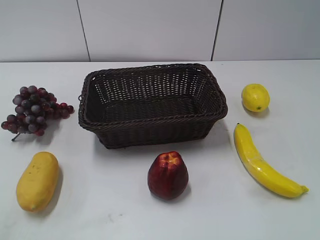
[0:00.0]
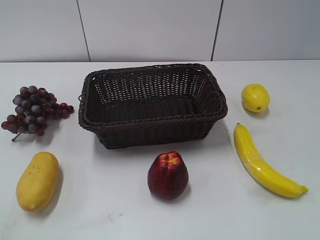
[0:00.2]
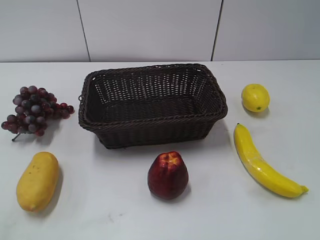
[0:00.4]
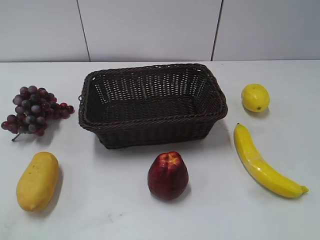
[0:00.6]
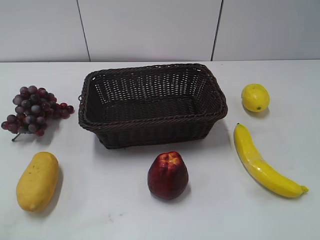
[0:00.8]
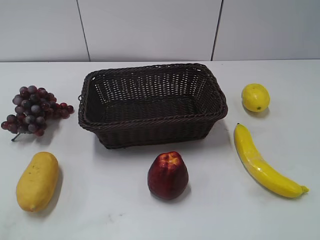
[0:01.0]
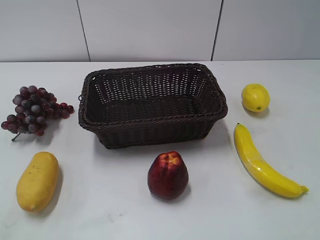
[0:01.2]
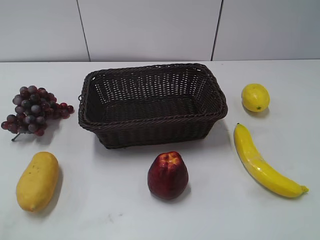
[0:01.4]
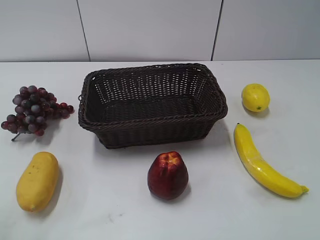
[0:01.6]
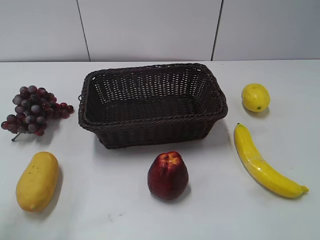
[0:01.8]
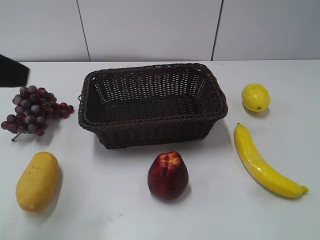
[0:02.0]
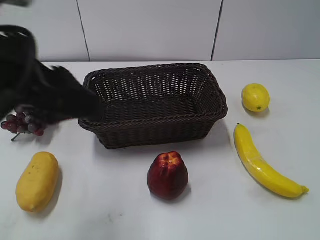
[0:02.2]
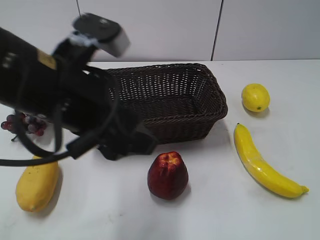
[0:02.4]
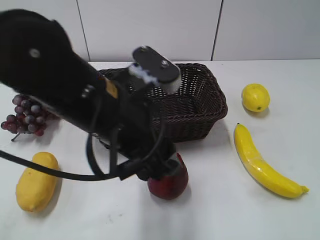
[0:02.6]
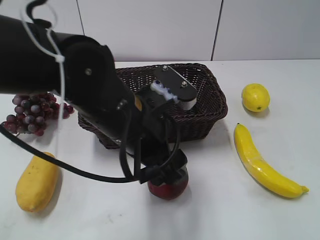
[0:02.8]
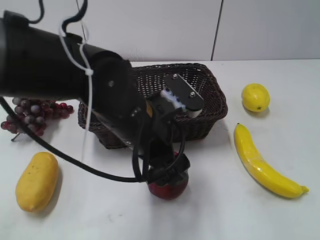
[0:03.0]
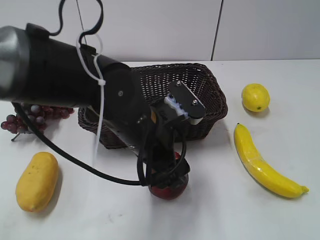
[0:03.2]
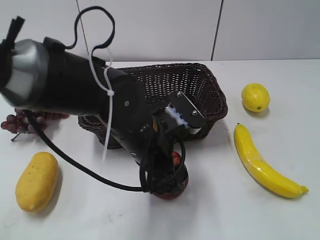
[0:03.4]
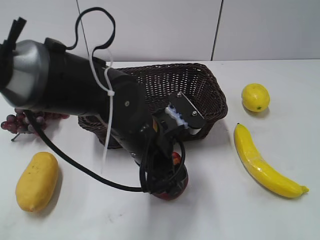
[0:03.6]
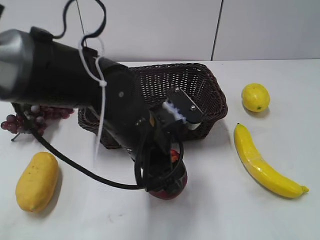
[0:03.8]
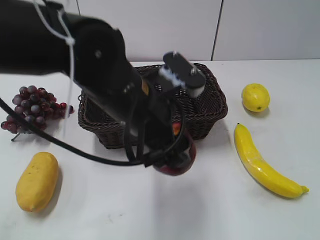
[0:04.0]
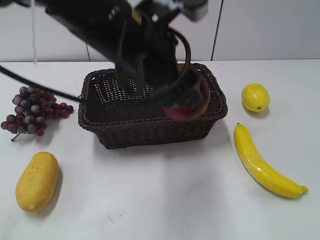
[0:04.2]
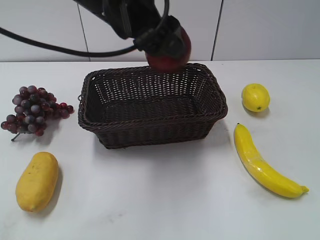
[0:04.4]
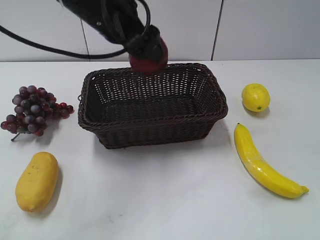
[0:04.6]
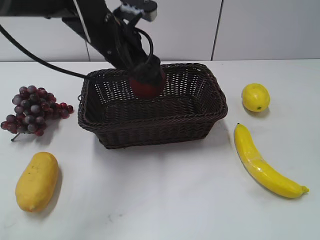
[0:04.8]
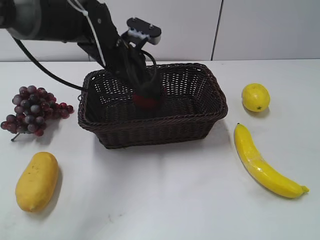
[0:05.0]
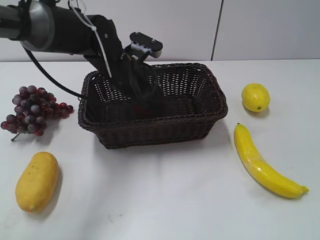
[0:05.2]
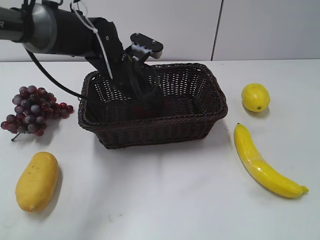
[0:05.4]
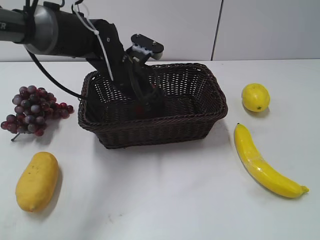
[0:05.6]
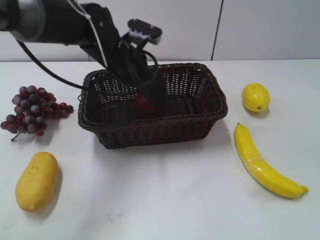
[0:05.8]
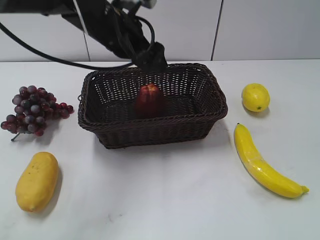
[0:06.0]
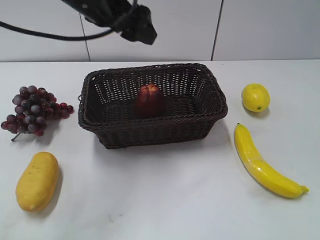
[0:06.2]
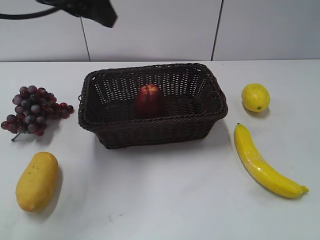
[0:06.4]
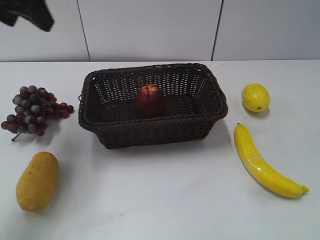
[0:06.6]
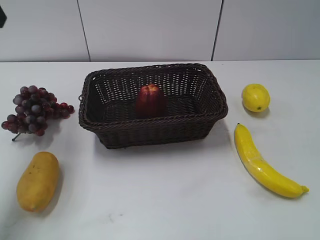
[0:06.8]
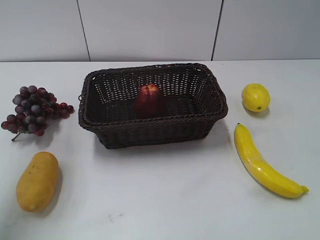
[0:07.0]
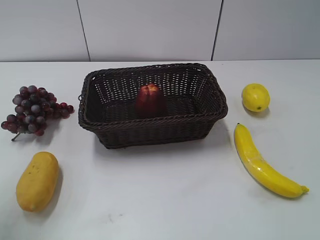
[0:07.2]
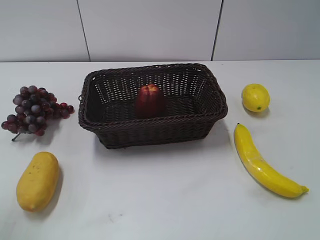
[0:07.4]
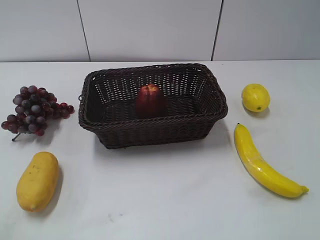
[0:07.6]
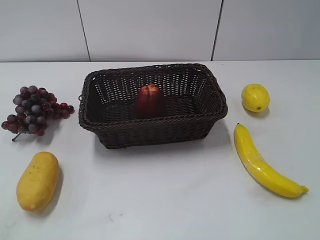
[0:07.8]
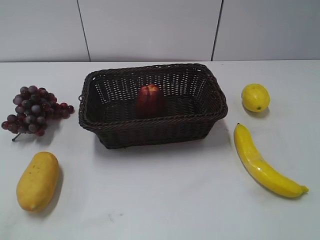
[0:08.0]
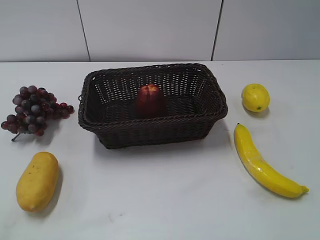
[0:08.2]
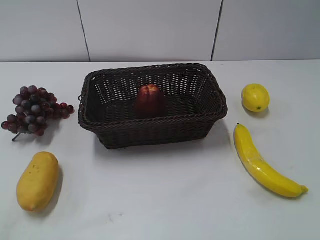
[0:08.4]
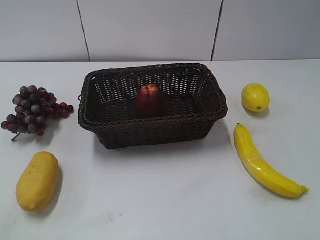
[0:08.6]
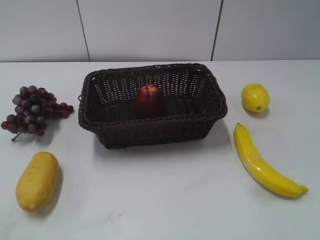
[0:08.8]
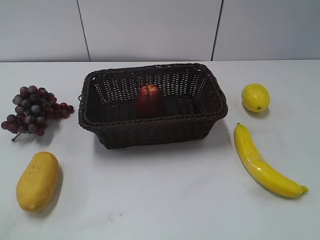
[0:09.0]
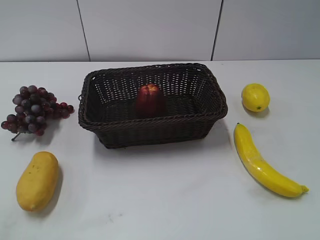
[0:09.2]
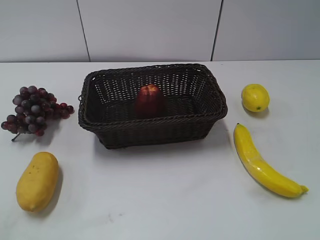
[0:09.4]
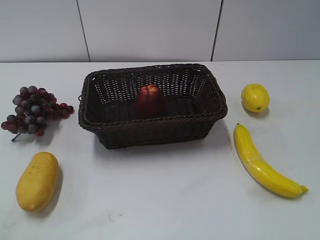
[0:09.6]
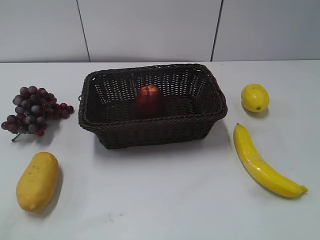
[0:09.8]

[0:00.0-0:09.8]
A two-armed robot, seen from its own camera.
Step, 0:02.0 to 0:03.4: Grasp the apple with left gripper.
Step, 0:03.8 to 0:05.6: Place the apple in the basket with left gripper.
0:01.4 to 0:02.8: The left gripper travels to the right, forward and downward by about 35 cm.
0:02.8 to 0:04.2: The left gripper shifts about 10 cm upward, and opens, then closes once more.
0:04.2 to 0:05.6: The left gripper travels forward and downward by about 20 cm, and opens.
0:05.6 to 0:07.0: The left gripper is displaced upward, to the left and backward by about 35 cm, and closes up.
0:07.0 to 0:08.4: The left gripper is displaced backward and downward by approximately 30 cm.

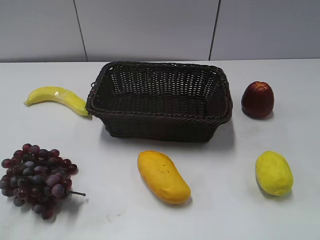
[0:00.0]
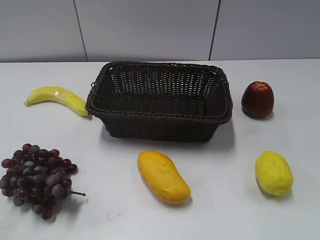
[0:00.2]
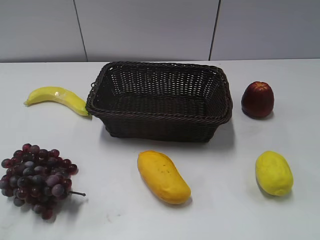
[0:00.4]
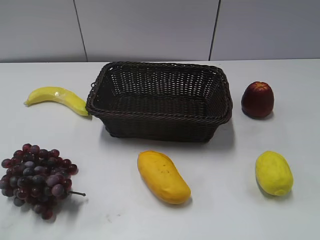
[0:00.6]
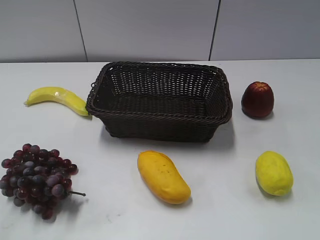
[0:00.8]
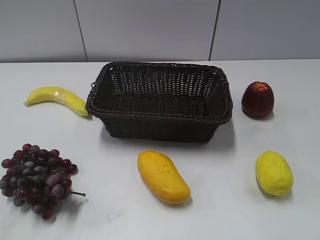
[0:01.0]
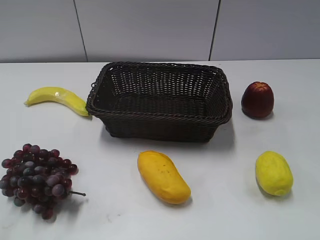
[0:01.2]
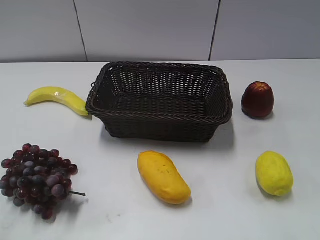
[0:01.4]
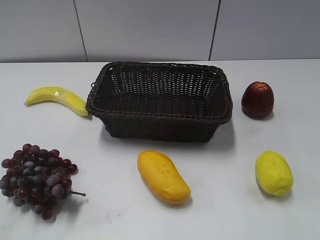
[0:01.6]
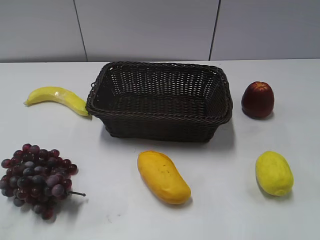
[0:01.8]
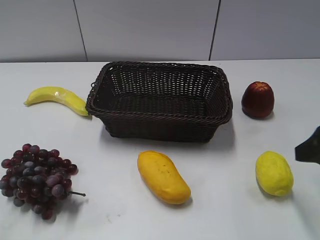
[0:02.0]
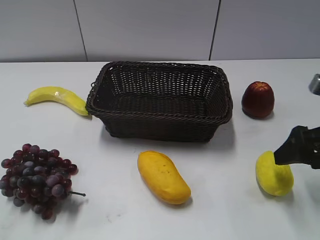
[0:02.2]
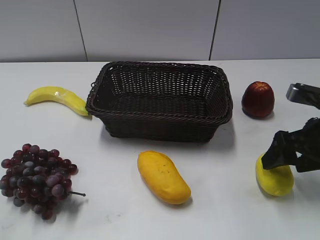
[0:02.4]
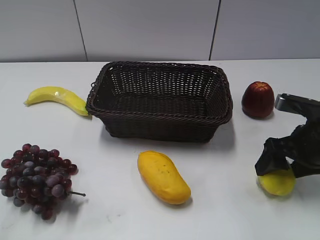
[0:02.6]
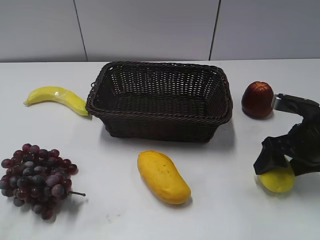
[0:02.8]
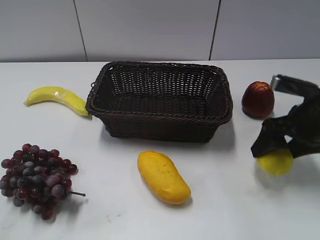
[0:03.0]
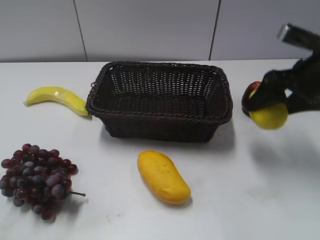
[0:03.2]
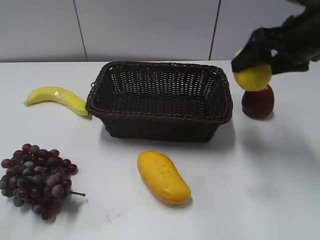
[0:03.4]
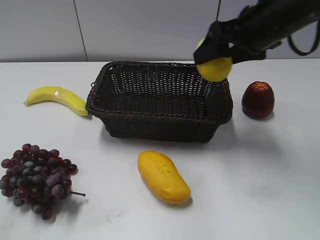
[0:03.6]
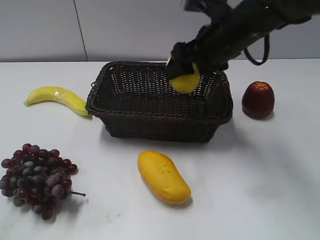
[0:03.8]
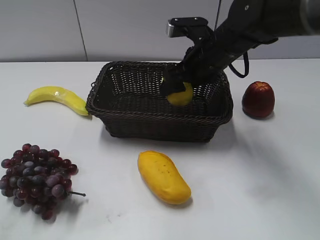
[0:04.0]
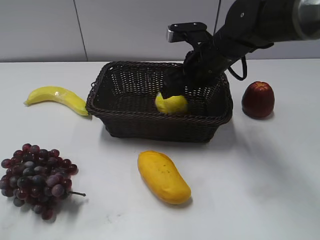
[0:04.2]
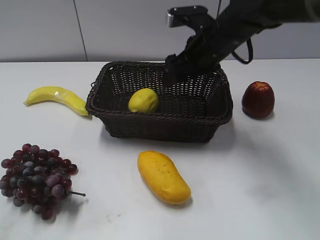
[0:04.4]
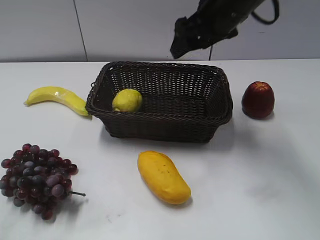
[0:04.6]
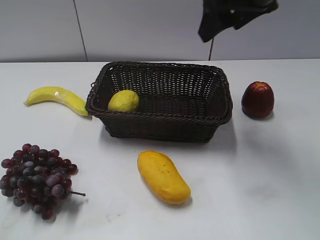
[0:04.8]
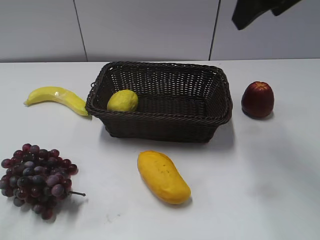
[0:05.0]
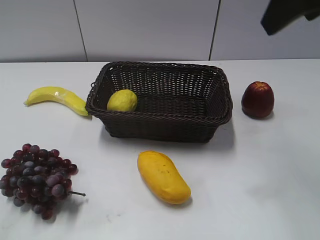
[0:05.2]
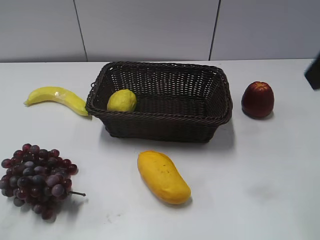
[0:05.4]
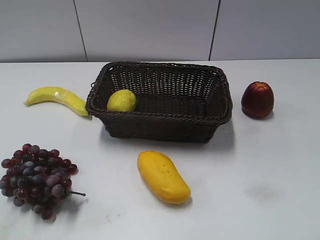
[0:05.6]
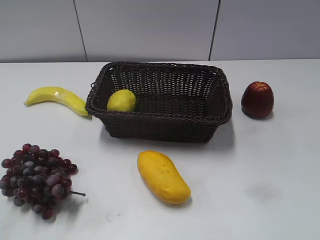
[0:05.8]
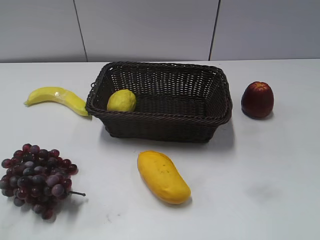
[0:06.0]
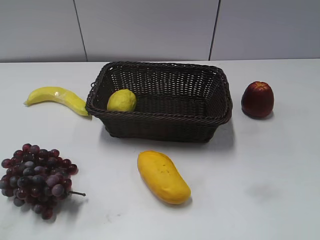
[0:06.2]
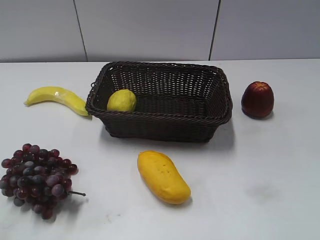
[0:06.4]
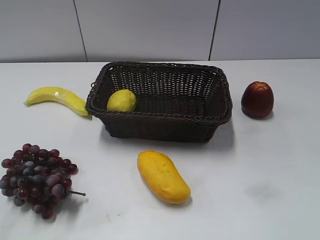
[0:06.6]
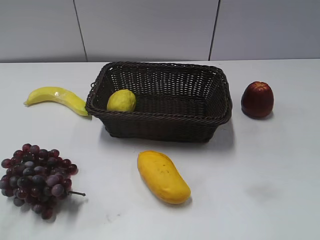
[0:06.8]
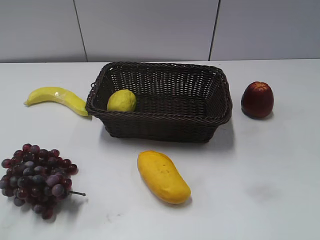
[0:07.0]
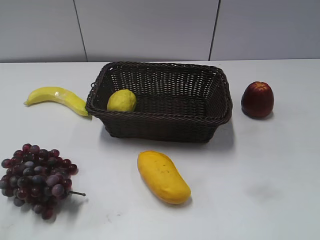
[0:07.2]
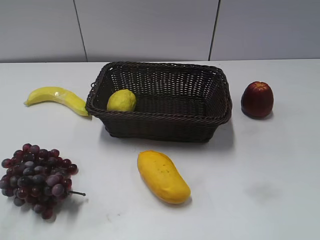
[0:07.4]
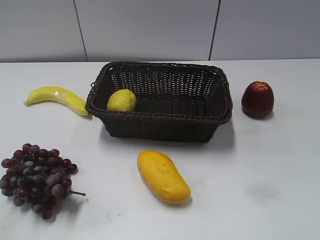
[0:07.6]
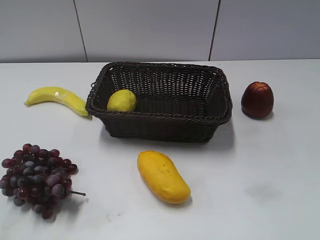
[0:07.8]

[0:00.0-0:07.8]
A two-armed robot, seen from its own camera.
Step, 0:02.0 to 0:02.8: Grasp the lemon with right gripper.
Step, 0:03.2 to 0:04.2: Place the lemon in the basket with right gripper.
0:01.6 to 0:03.2: The right gripper travels forward by roughly 20 cm, and opens.
0:03.2 to 0:04.6: The right gripper heads to the left, upward and forward, covering about 15 cm, and opens up.
0:04.6 to 0:06.2: The right gripper goes some 40 cm backward and to the right, and closes.

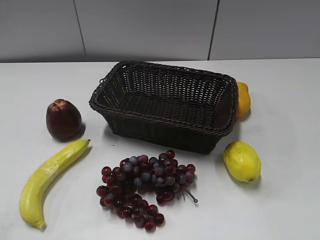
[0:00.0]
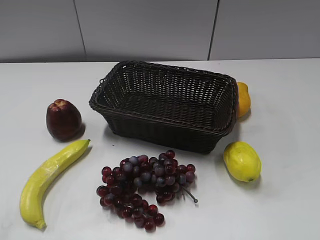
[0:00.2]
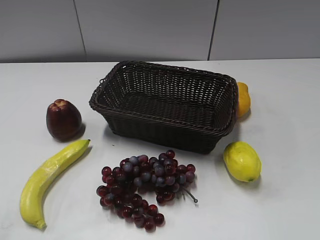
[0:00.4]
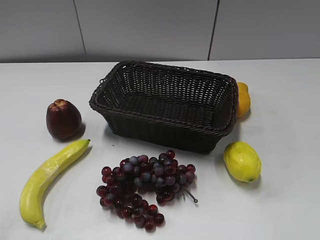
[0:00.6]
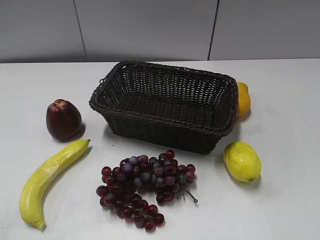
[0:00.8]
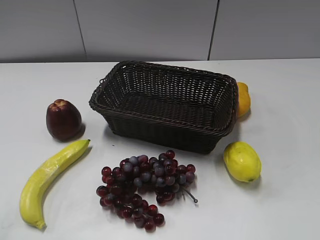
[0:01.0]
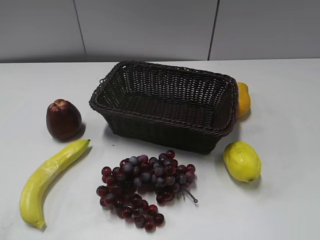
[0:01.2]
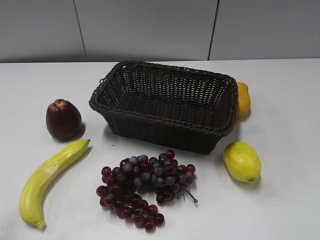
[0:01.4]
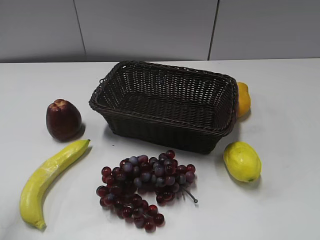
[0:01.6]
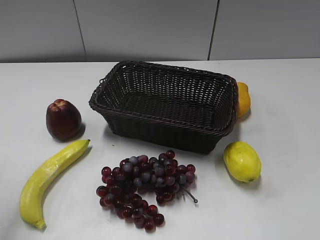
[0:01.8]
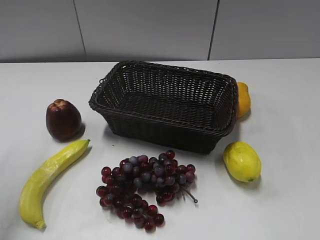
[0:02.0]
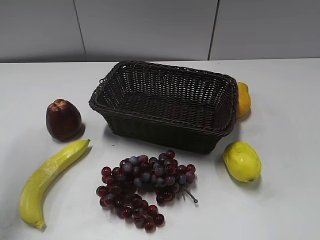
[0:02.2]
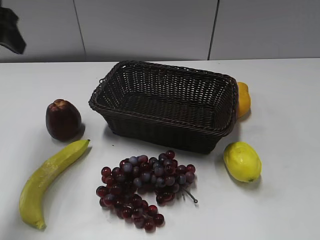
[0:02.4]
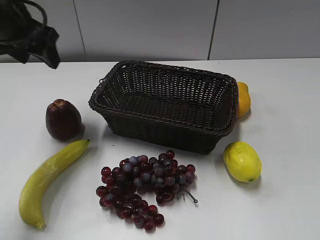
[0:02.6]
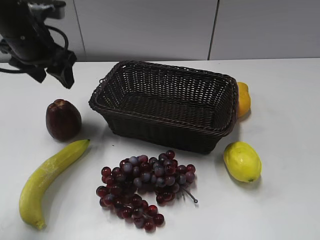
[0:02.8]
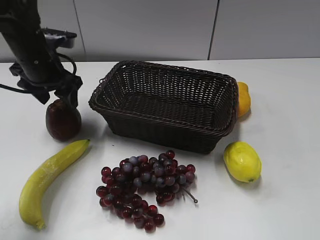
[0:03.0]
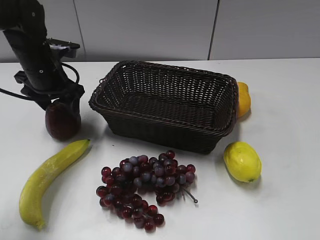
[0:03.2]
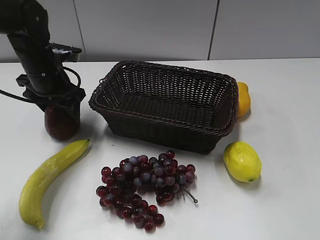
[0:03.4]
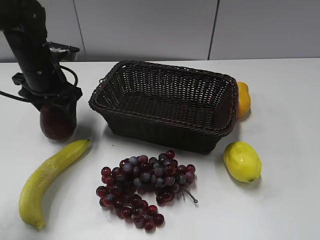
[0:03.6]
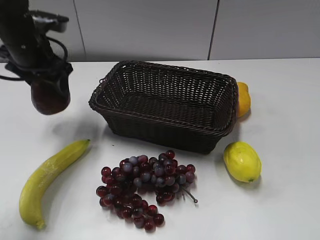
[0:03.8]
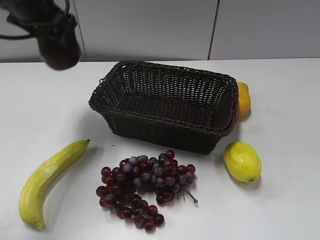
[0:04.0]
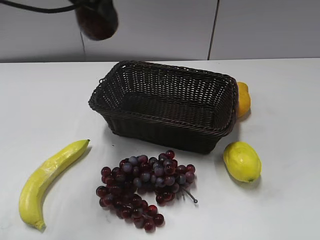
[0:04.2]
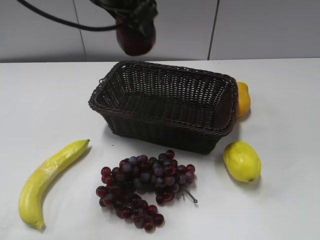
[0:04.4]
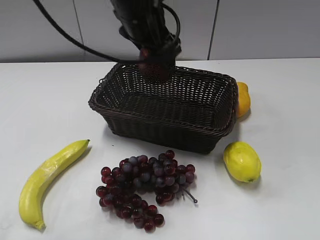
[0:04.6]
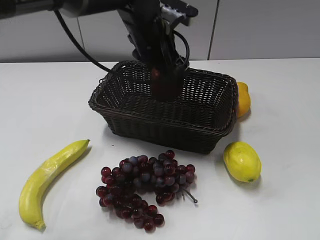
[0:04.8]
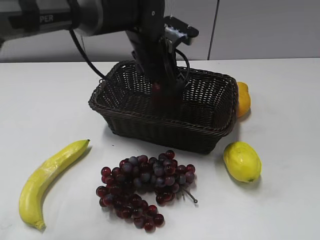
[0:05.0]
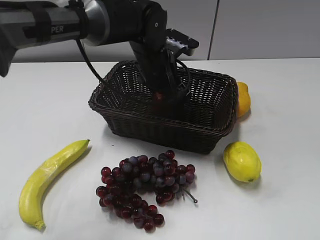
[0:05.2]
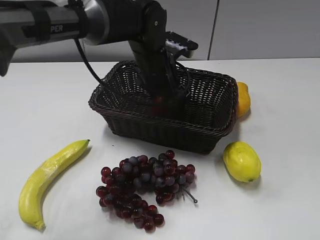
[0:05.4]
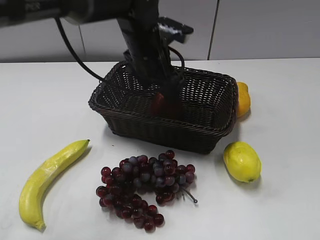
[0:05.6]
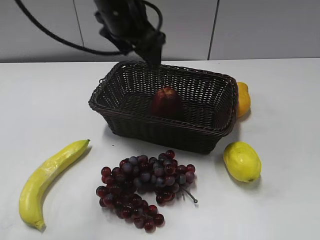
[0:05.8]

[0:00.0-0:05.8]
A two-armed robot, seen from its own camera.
Step, 0:02.4 to 0:03.4: Grasp the apple with left gripper.
Step, 0:03.6 to 0:05.4: Place the apple in the basket with left gripper.
0:01.4 to 0:02.8: The left gripper travels forward by roughly 30 cm.
0:02.8 to 0:04.4: The left gripper is displaced to the right and upward by roughly 15 cm.
0:04.4 to 0:05.8: The left gripper travels downward and back again, roughly 15 cm each way, and opens up.
